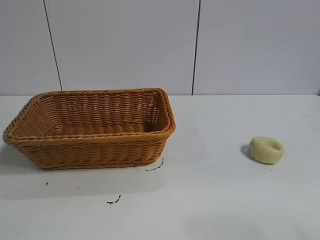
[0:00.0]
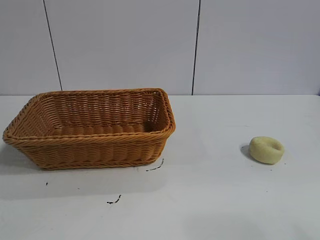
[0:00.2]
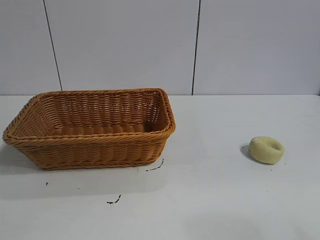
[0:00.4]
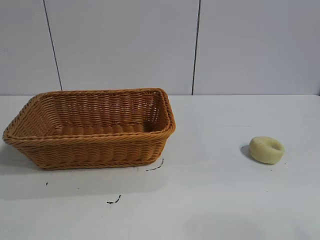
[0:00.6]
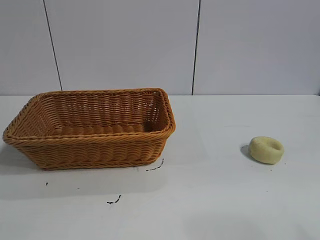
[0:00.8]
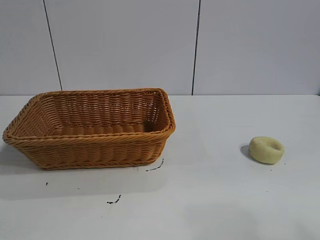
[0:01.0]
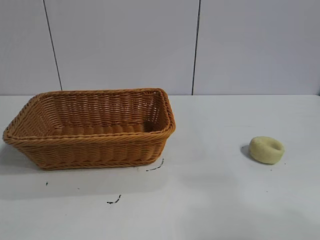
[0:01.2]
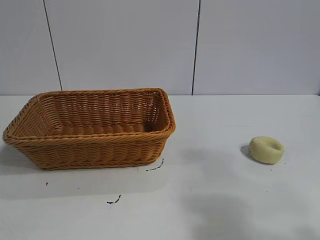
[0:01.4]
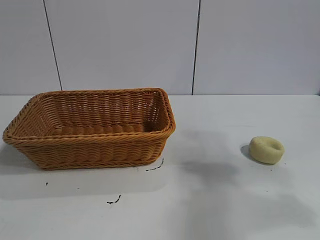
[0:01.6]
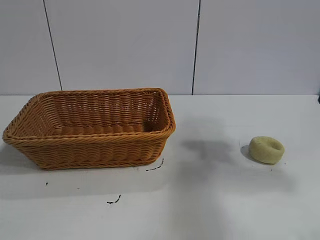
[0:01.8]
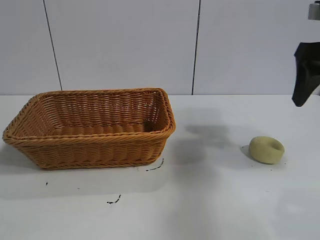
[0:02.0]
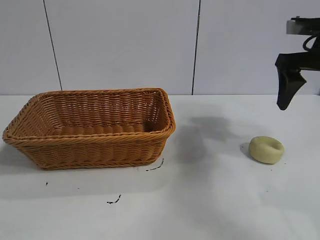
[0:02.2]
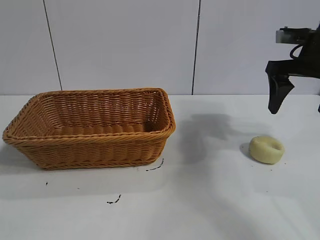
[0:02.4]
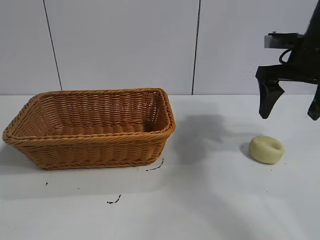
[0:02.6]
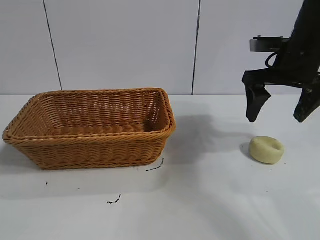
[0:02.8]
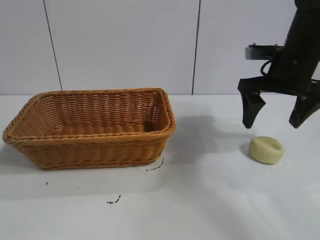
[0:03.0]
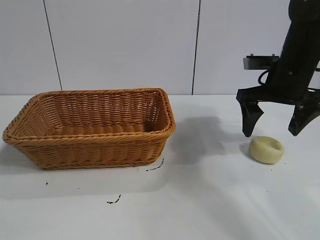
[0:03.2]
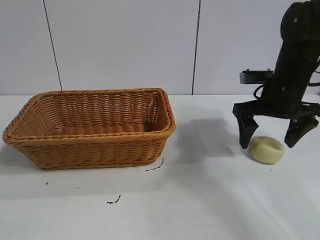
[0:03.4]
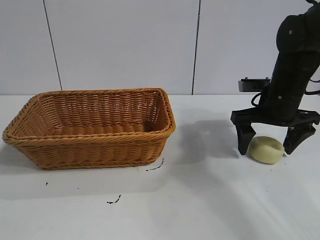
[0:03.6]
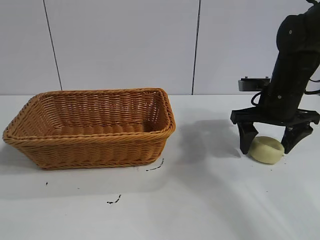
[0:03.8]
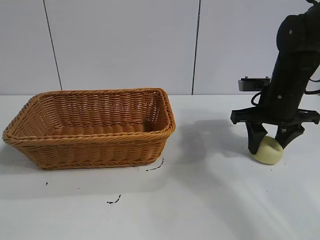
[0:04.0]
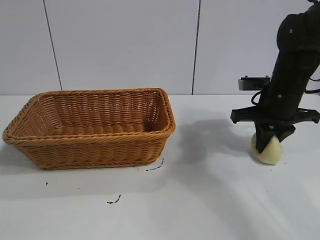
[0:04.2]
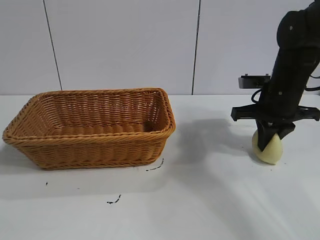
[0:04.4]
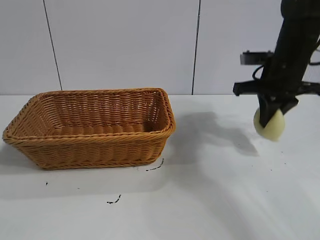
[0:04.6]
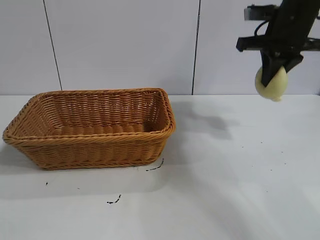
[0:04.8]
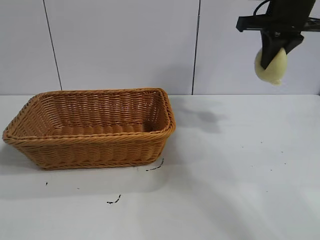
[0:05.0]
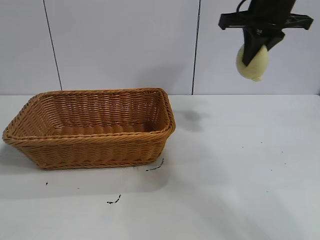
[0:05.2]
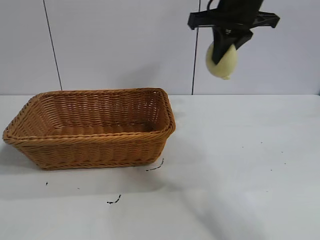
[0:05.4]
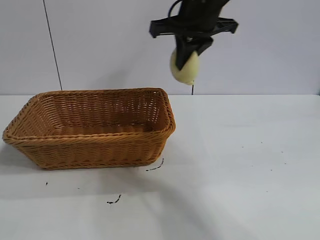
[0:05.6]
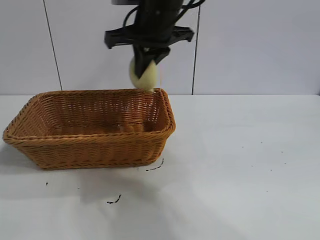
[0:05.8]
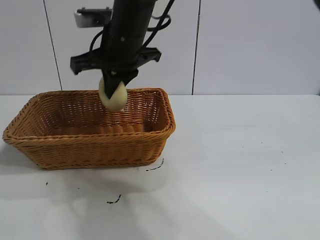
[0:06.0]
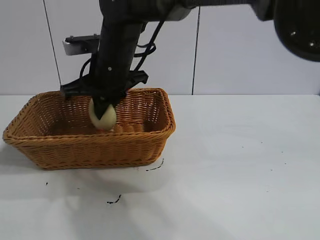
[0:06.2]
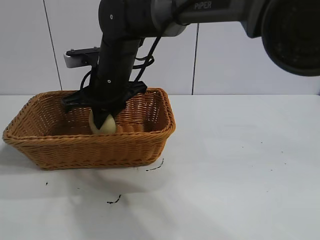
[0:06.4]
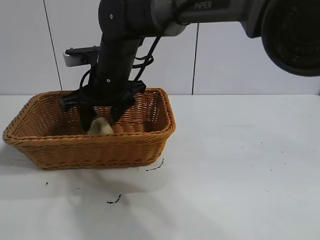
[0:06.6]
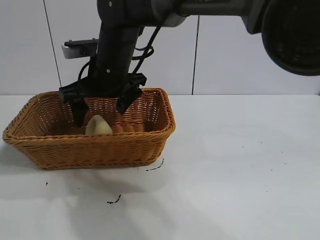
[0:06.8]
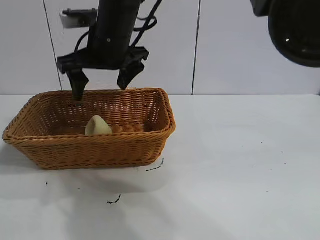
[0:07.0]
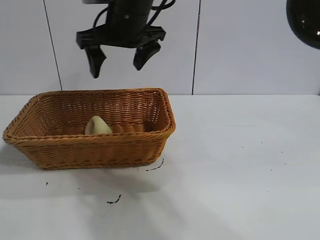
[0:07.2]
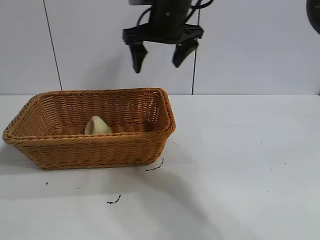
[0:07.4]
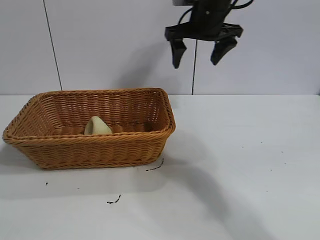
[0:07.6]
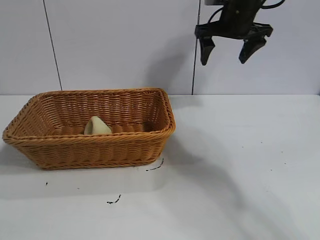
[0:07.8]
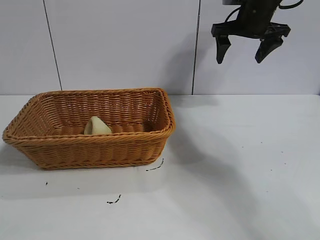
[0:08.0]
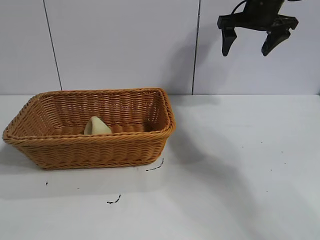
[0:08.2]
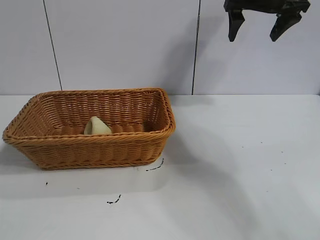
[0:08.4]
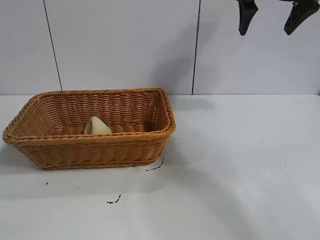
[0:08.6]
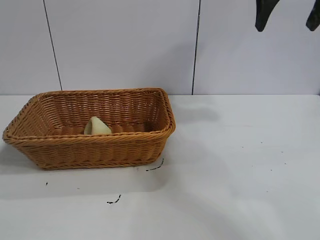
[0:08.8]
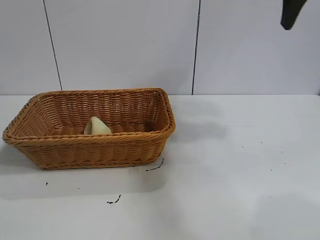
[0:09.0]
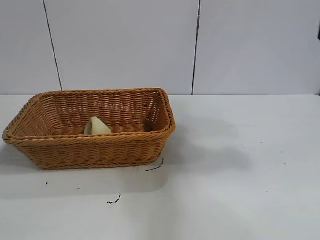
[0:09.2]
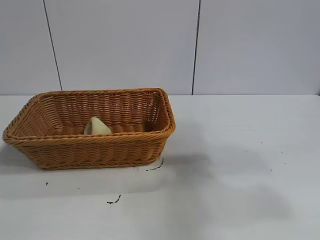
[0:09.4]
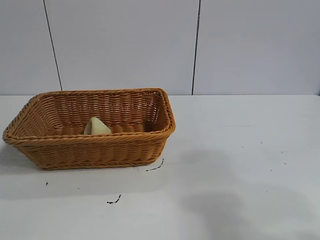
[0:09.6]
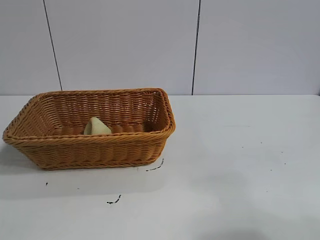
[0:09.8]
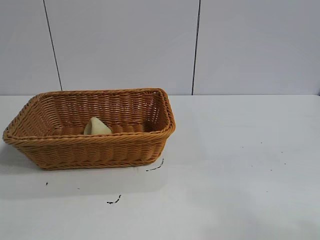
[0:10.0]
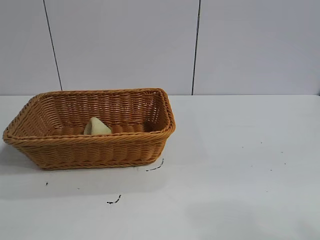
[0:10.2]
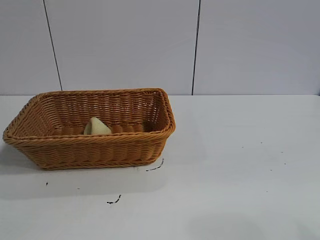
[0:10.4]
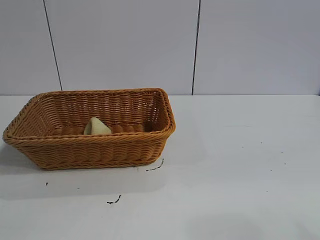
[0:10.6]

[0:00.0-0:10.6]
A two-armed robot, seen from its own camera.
Task of the whole recording: pick up the egg yolk pastry and put it into the basket.
Step, 0:01.0 to 0:04.4: Grasp egg yolk pastry with right gripper.
Step, 0:04.6 to 0:06.8: Place the egg yolk pastry in the basket with right gripper.
